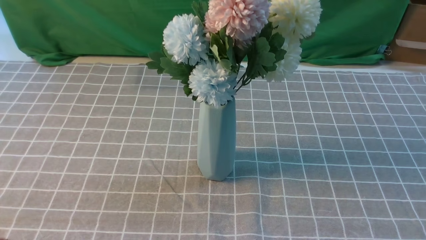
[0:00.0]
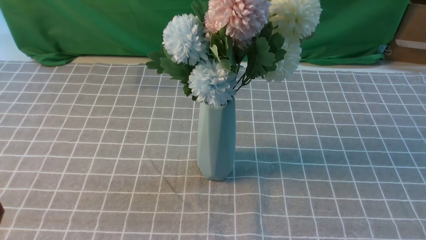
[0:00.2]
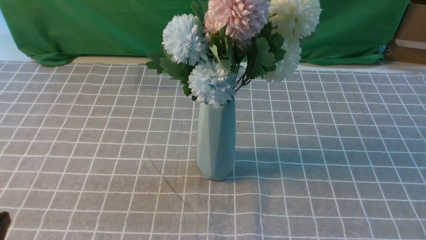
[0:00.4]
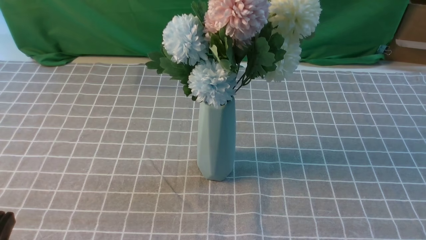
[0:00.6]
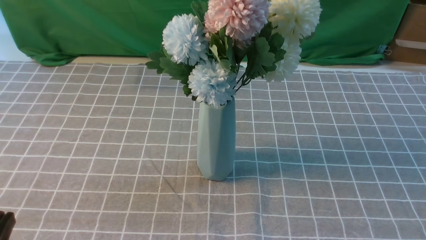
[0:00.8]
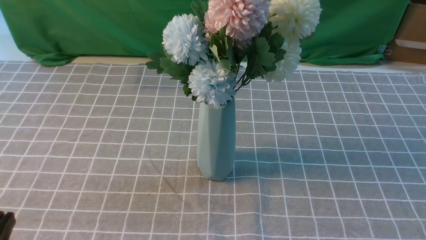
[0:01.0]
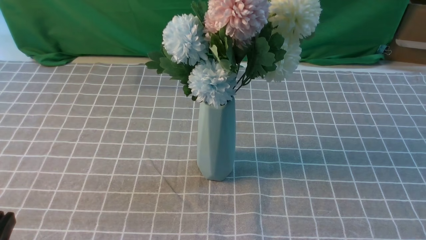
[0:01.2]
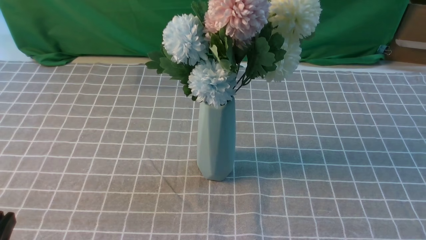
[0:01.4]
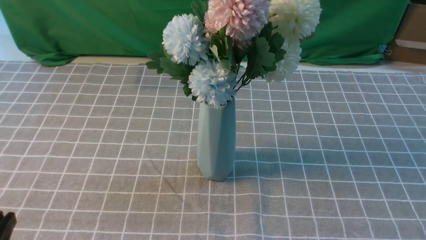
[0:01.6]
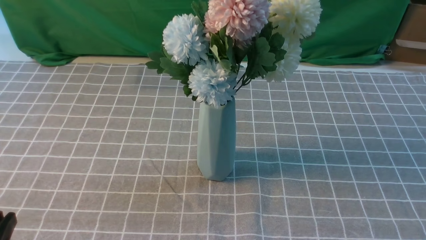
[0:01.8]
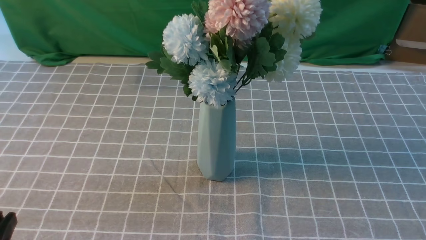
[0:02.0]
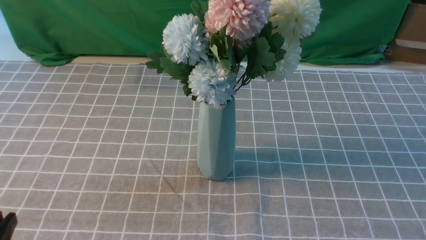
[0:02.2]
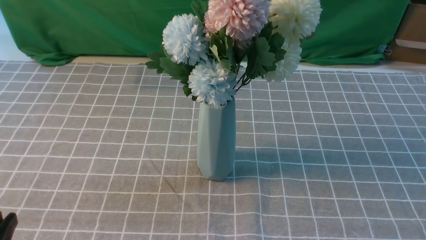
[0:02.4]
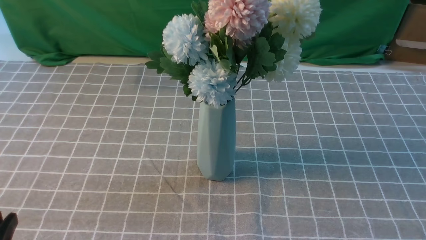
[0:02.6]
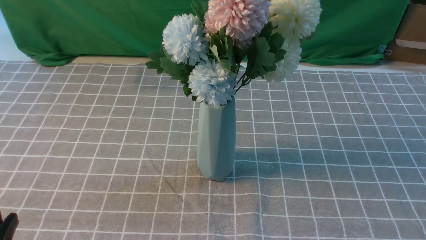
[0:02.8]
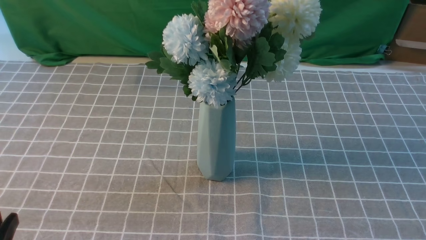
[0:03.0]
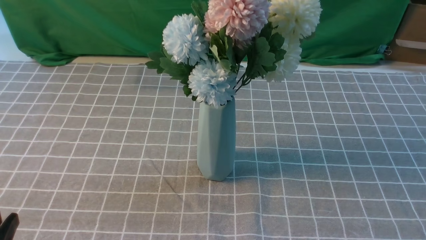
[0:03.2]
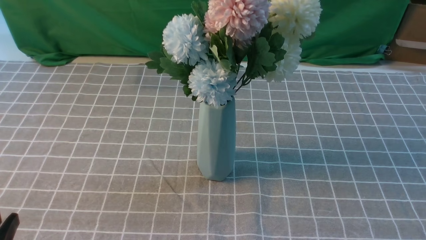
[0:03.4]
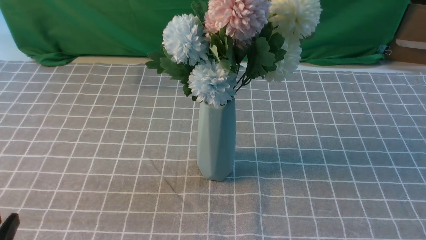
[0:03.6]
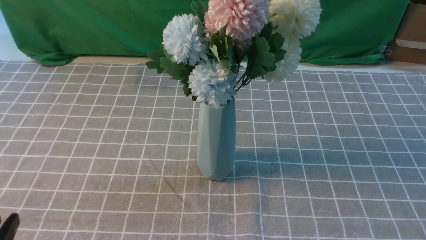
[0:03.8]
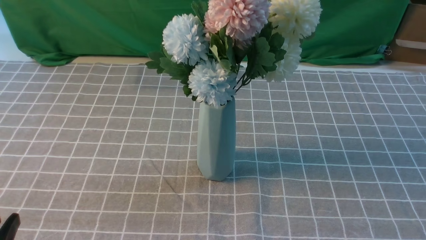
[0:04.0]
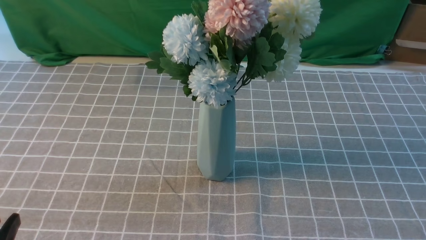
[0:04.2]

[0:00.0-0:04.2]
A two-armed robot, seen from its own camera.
Task of the whole recording: insert the flowers into the vase on the table with the grey tablecloth.
0:02.8 to 0:04.2: Both grippers stay put.
